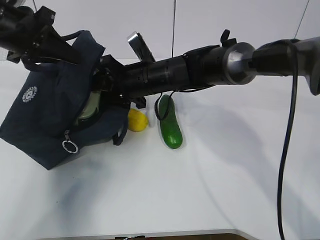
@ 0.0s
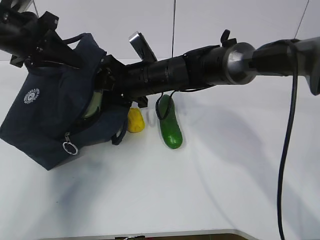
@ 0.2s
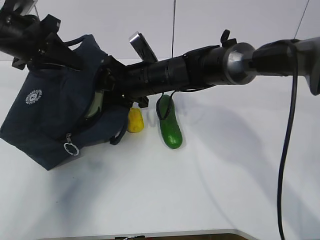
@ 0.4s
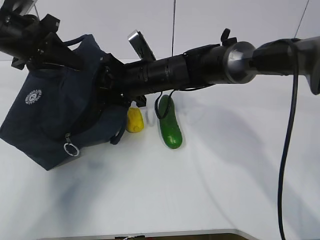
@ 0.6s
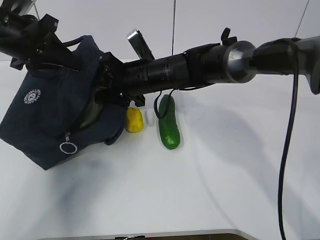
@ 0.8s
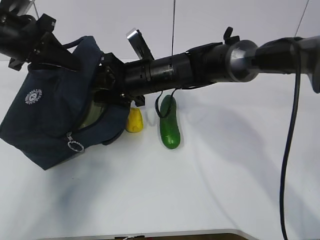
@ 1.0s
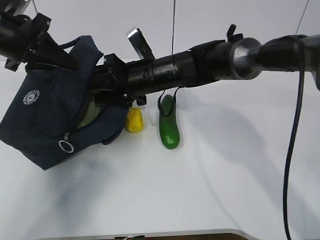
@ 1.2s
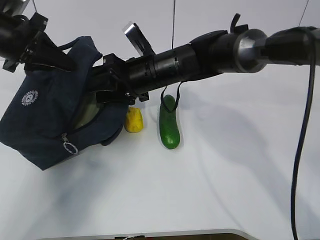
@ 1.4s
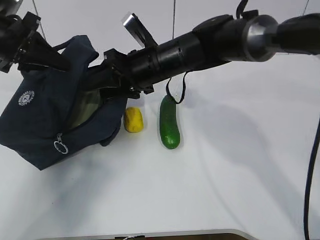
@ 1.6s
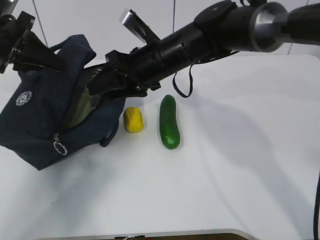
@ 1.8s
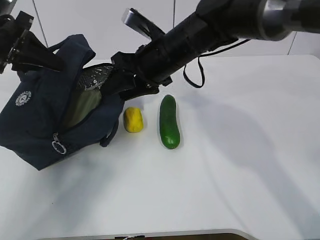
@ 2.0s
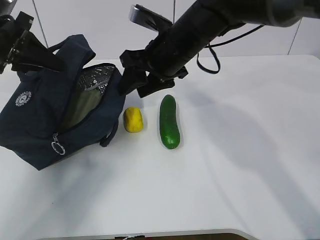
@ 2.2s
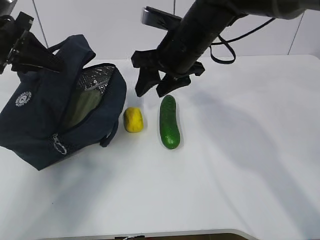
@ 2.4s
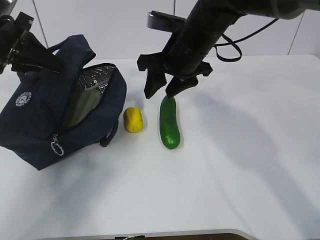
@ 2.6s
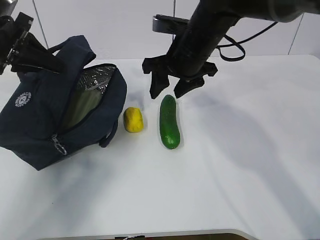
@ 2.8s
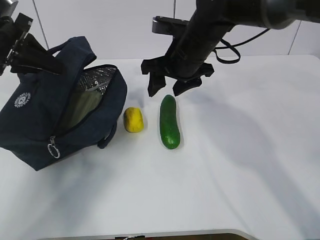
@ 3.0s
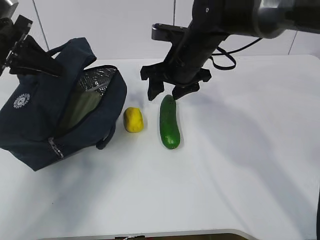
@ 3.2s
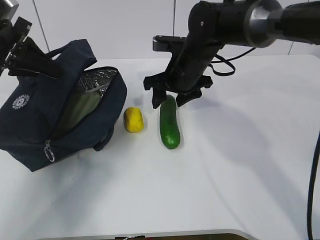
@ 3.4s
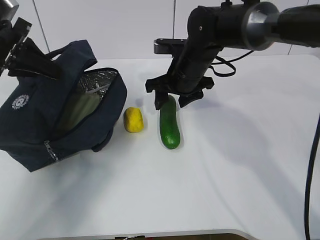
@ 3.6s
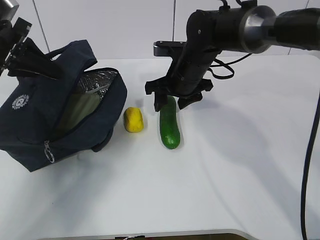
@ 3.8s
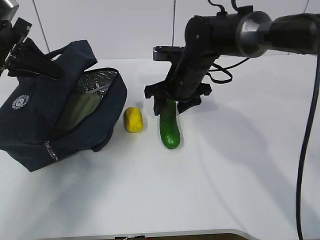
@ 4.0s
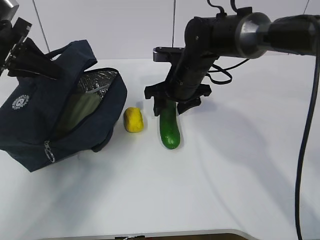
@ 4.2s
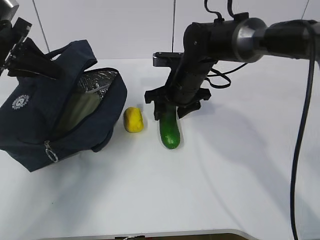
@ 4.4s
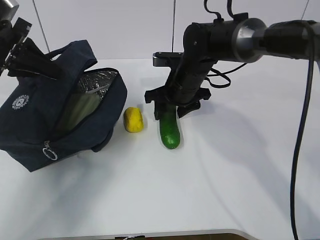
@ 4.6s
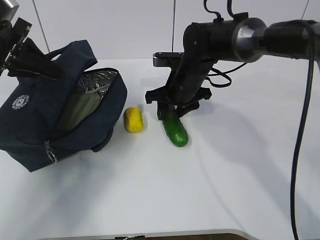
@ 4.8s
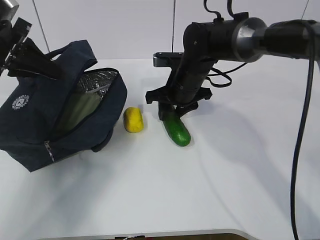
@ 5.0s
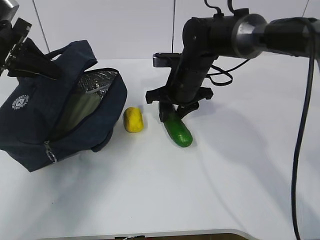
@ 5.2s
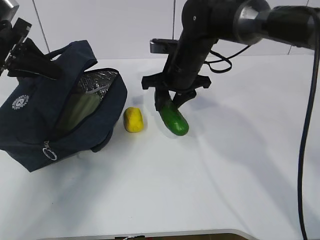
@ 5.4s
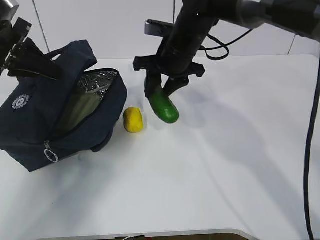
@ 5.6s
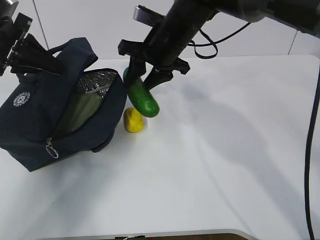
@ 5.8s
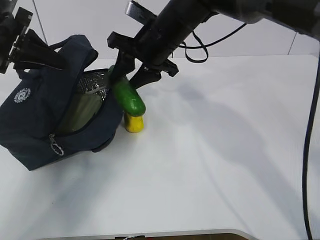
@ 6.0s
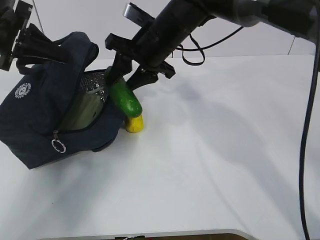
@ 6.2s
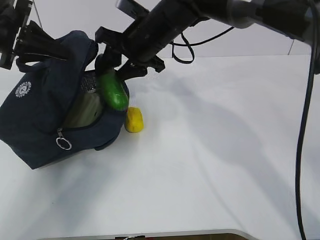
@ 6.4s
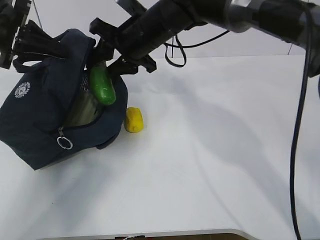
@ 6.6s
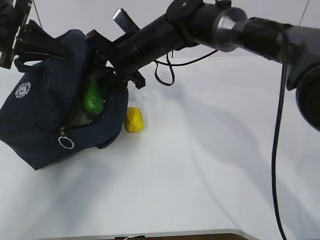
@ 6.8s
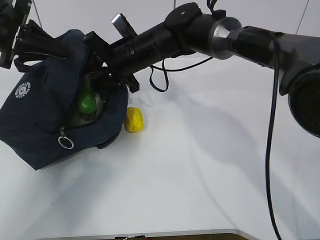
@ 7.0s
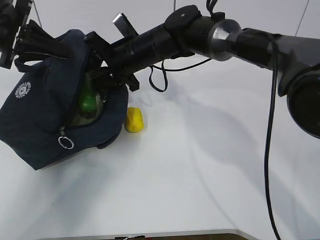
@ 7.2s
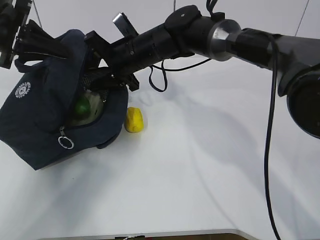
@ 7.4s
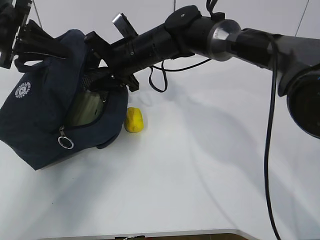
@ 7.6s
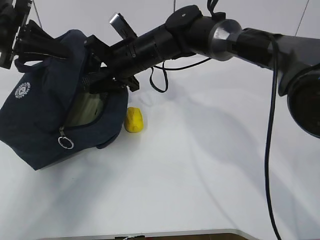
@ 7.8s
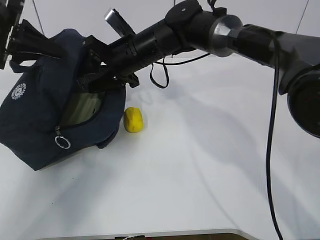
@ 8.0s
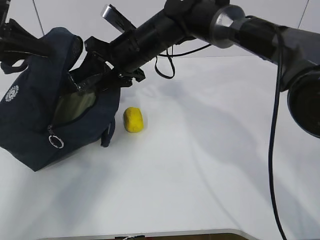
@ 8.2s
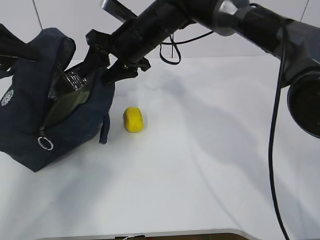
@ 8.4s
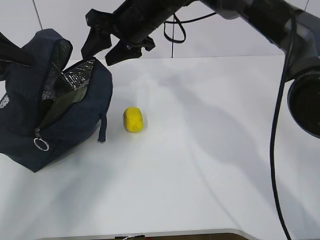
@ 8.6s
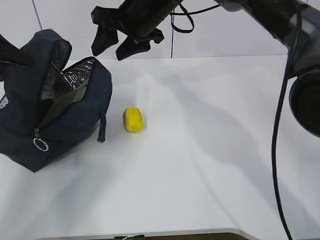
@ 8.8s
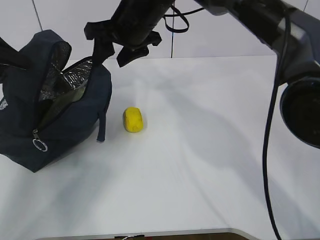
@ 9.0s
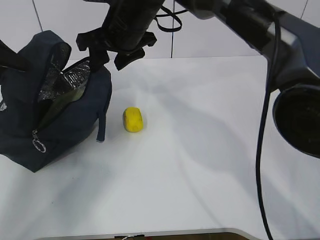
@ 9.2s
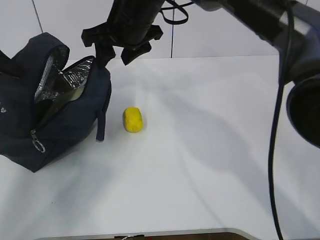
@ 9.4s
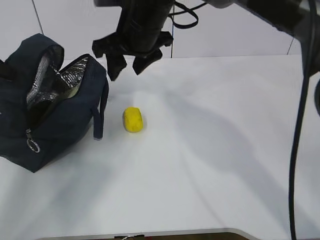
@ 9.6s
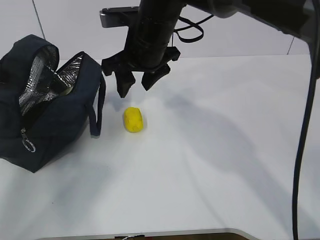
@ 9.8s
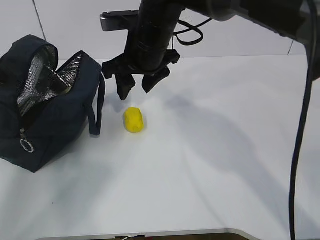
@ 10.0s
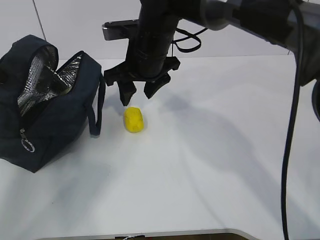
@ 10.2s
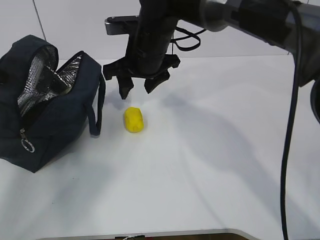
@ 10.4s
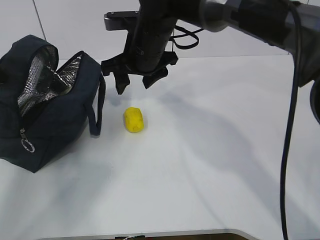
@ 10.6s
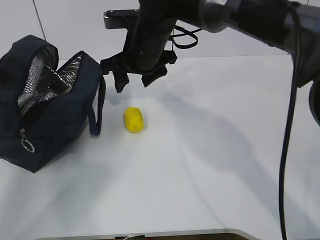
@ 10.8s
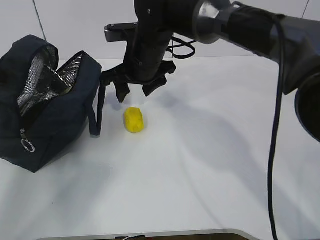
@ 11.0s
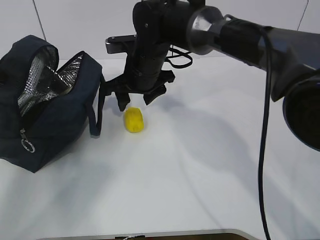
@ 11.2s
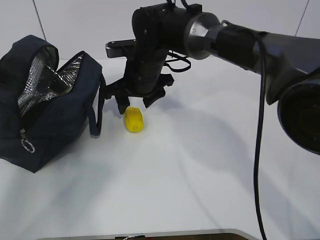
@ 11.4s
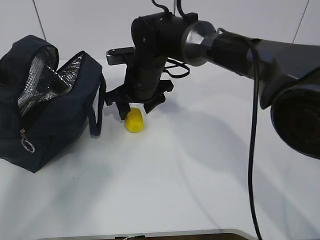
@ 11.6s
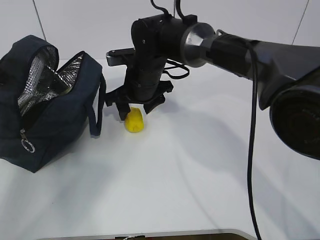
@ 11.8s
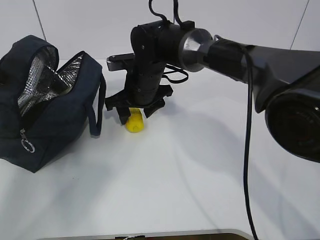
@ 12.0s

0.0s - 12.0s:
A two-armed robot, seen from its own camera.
Step, 1.4s - 3.4s: Place it into the bag with your right hand.
Step, 3.6s - 7.8s: Grab the lemon with your right hand.
Step, 8.0s - 9.8s: Secure the lunch bag with your left hand.
1.6s - 3.0s: The right gripper heads to the right, covering some 5 cm.
3.0s - 4.4s: The right gripper goes about 5 cm downward.
4.4s - 6.0s: The right gripper moves upward, about 10 cm.
6.0s - 7.6s: The right gripper changes place by roughly 5 cm.
7.6s - 9.0s: The right gripper shifts some 5 cm upward. Meanwhile the left gripper moves to the left, approximately 5 cm.
10.4s - 12.0s: The right gripper is displaced downward by about 10 cm.

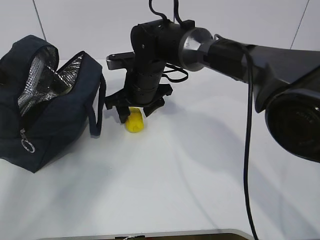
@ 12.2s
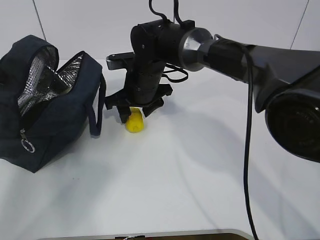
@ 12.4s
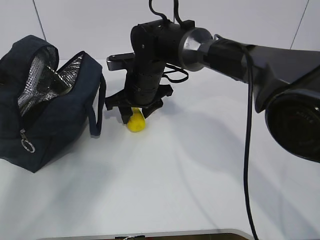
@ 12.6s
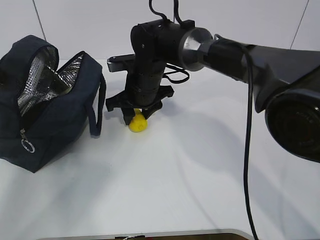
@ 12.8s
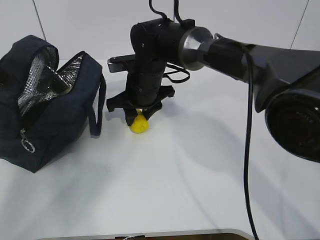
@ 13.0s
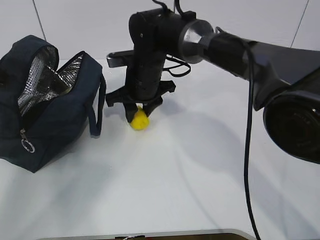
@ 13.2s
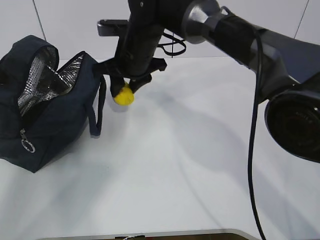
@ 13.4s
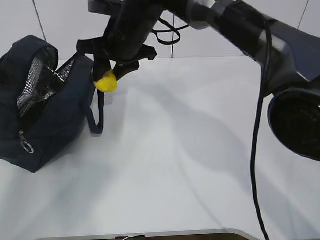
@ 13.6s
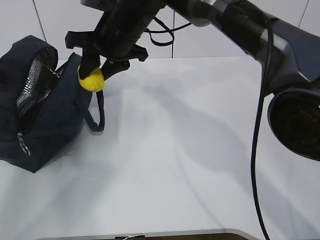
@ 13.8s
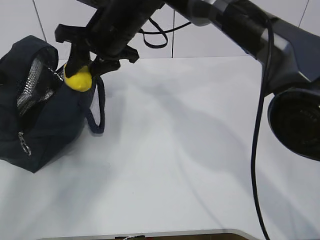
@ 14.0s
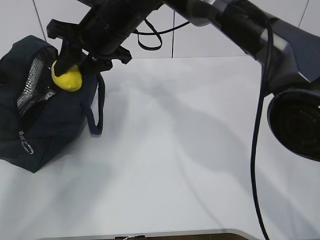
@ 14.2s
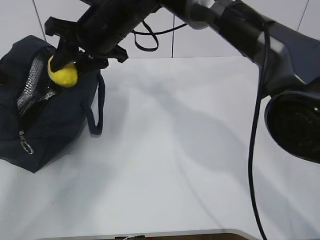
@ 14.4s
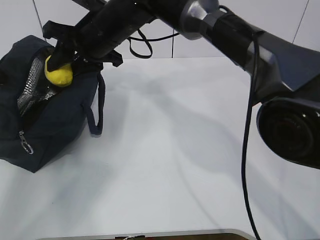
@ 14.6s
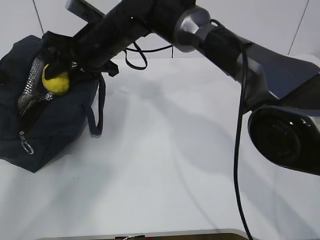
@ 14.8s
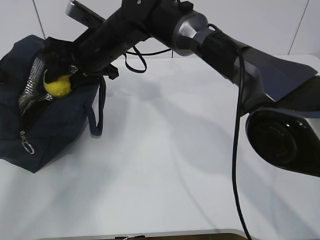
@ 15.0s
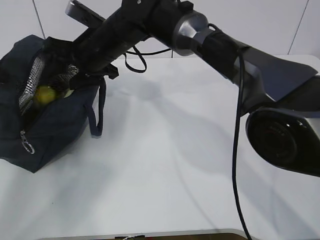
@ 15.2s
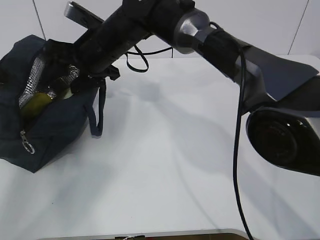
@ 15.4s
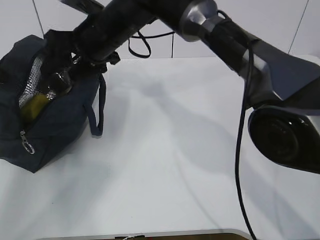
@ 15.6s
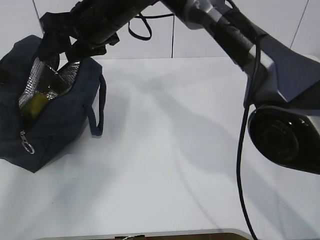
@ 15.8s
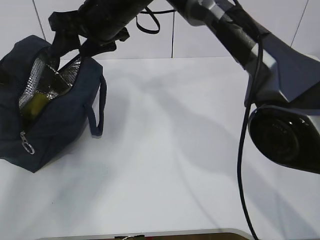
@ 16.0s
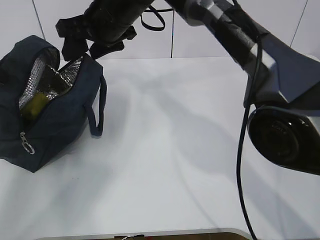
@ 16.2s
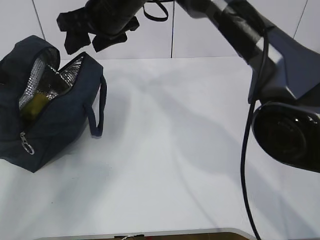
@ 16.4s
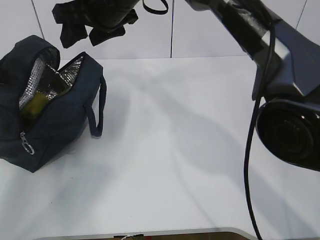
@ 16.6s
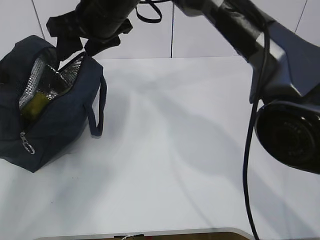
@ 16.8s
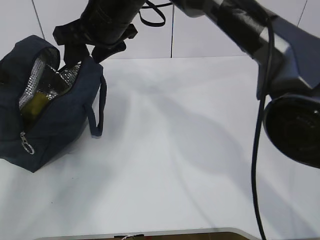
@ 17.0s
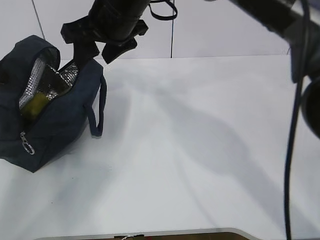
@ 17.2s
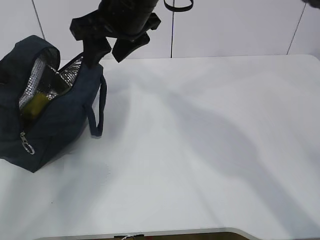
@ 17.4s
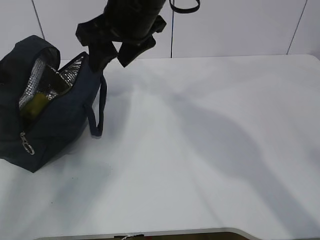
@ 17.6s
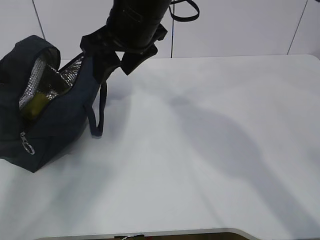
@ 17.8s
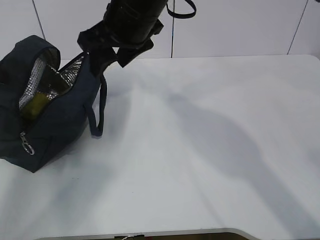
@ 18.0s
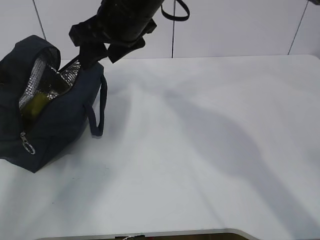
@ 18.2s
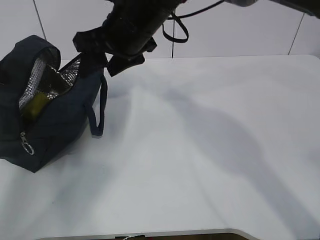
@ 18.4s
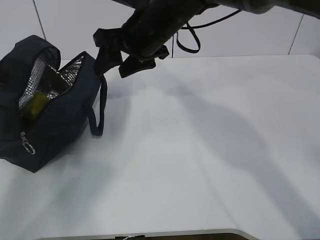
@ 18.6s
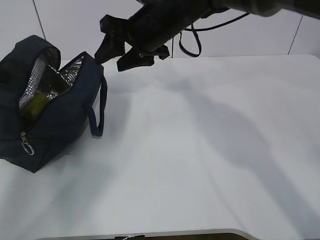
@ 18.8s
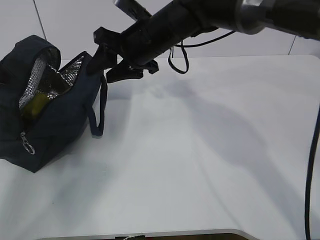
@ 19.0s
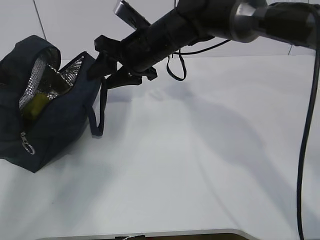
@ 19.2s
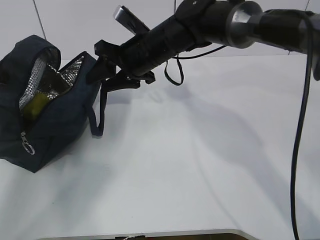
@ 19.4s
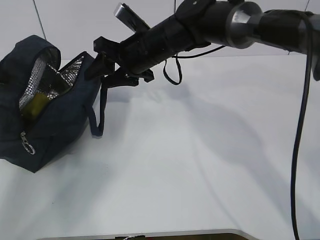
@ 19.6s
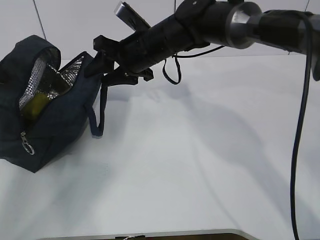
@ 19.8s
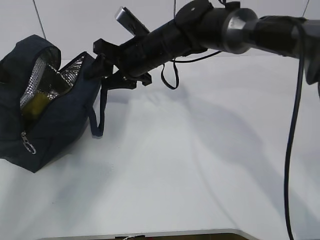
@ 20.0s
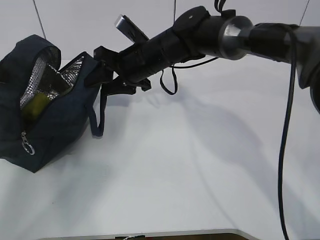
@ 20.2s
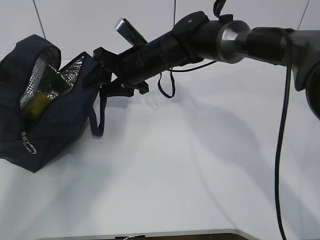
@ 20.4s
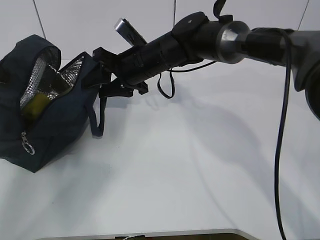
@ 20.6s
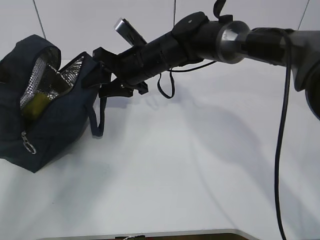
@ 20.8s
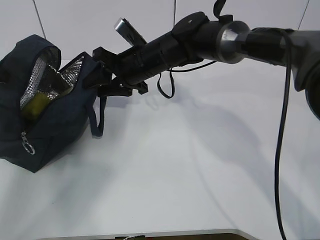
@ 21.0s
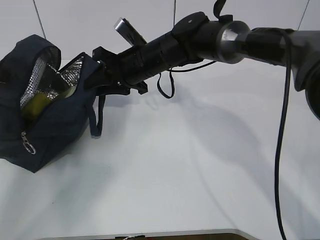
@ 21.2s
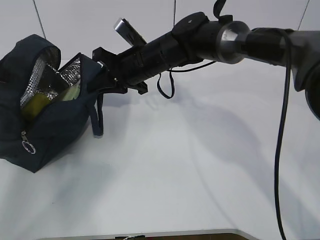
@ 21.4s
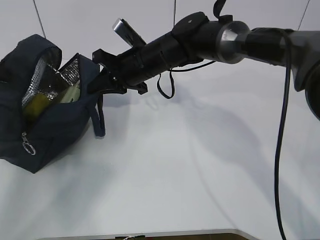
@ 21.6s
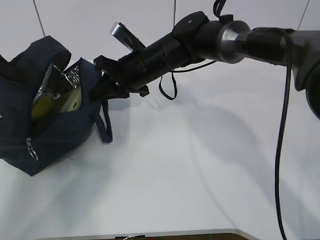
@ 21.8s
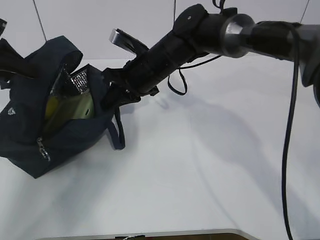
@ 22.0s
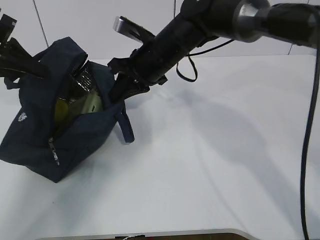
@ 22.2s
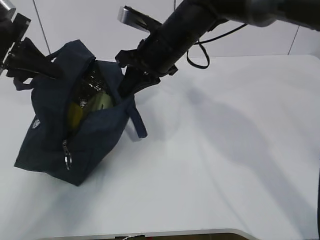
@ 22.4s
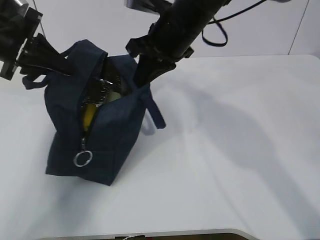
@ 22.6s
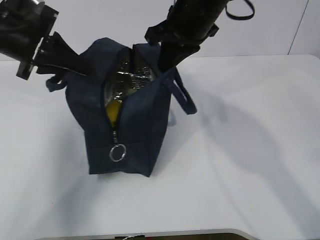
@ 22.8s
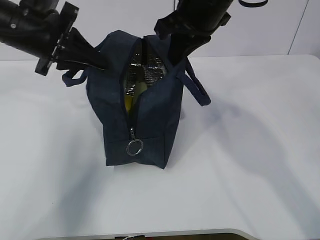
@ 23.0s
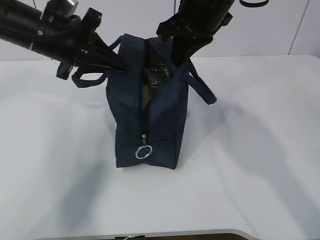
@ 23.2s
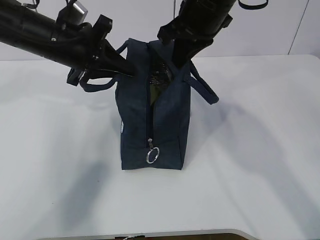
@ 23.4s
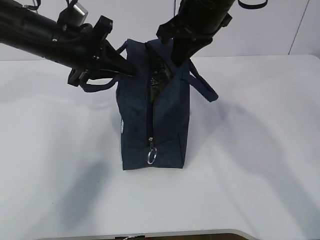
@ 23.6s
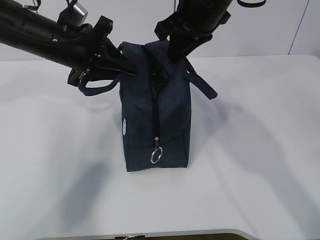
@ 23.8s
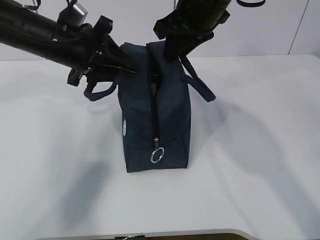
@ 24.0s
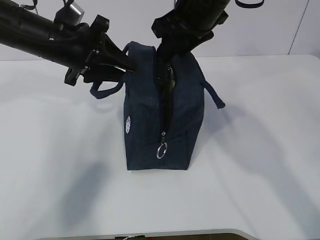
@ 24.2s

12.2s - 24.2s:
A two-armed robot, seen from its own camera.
Step, 12.2s - 14.8s: Grab the lunch bag with your right hand.
Step, 15.0s - 17.4s: Move the lunch bag to the right.
12.2s - 13.8s: The right gripper goes about 10 cm upward, and closes up.
13.8s - 15.2s: The right gripper changes place by some 5 cm.
15.2s - 16.6s: The right gripper travels upward by roughly 10 cm.
18.2s - 19.8s: The right gripper is displaced downward and forward by roughly 10 cm.
19.8s - 21.2s: The grippers move only a little.
21.2s - 22.6s: The left gripper shifts some 10 cm to the right; the right gripper travels upward and to the right by roughly 10 cm, and closes.
22.6s - 24.2s: The right gripper changes place by approximately 5 cm, and opens up. Meanwhile the left gripper goes about 10 cm to the right, and opens.
